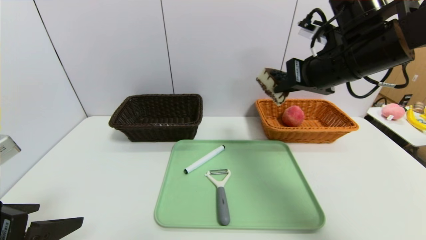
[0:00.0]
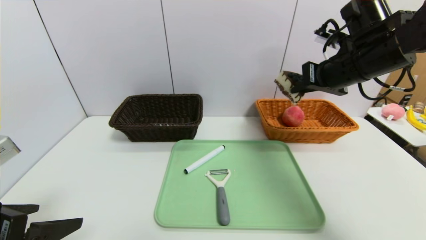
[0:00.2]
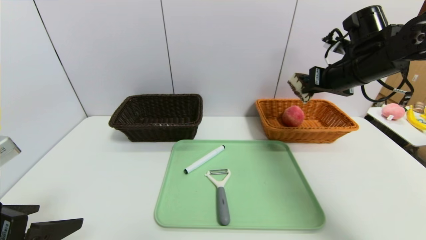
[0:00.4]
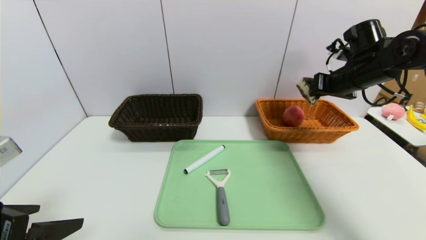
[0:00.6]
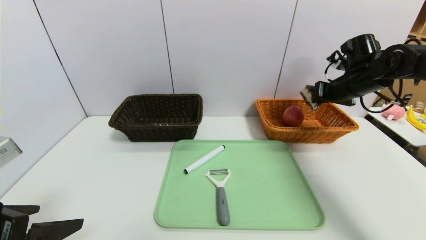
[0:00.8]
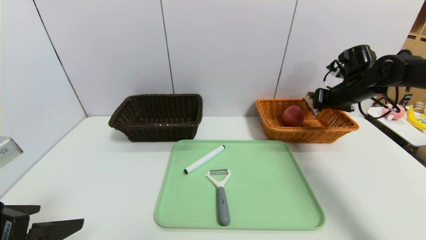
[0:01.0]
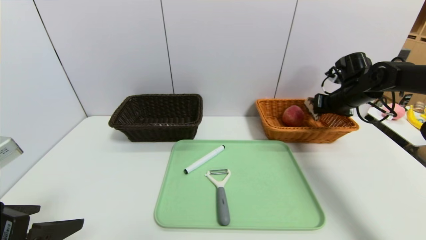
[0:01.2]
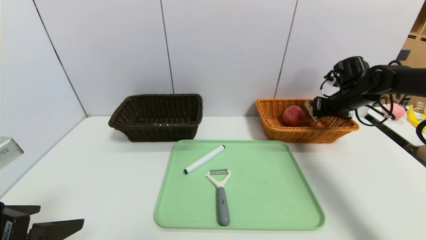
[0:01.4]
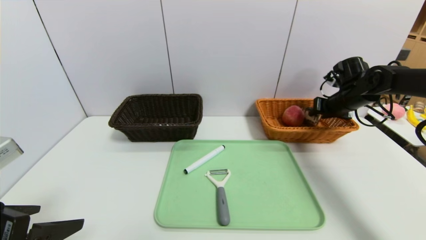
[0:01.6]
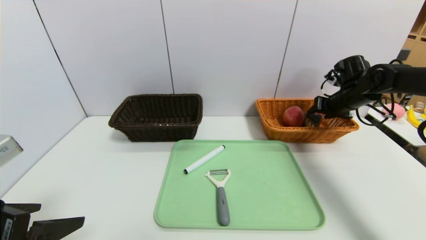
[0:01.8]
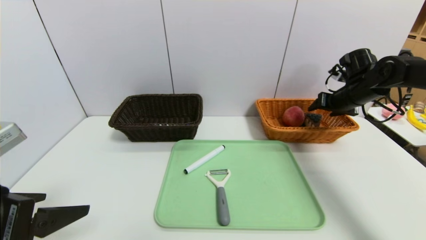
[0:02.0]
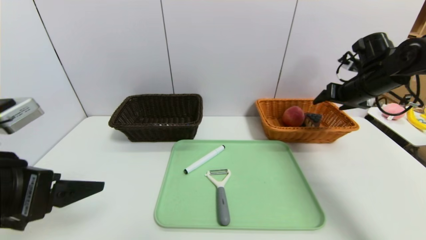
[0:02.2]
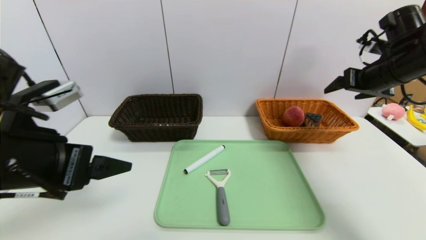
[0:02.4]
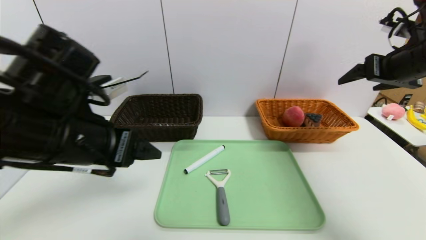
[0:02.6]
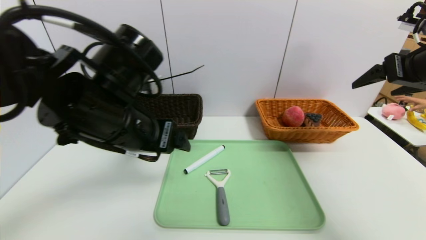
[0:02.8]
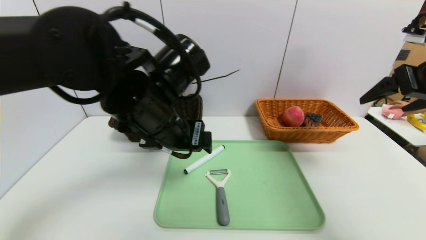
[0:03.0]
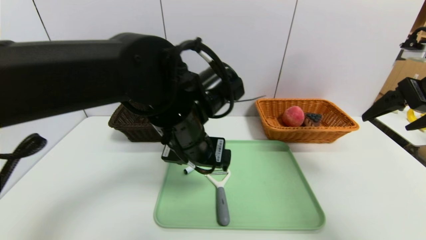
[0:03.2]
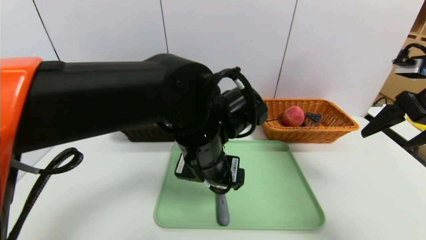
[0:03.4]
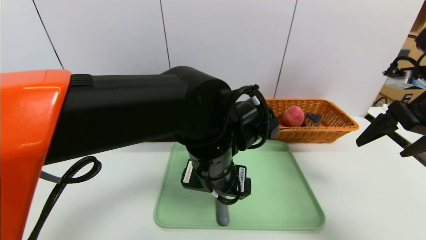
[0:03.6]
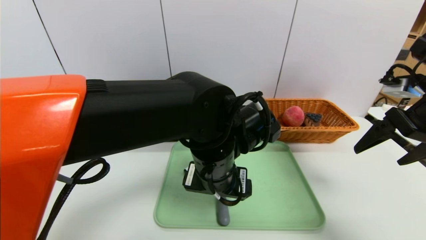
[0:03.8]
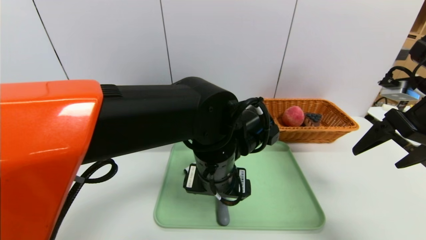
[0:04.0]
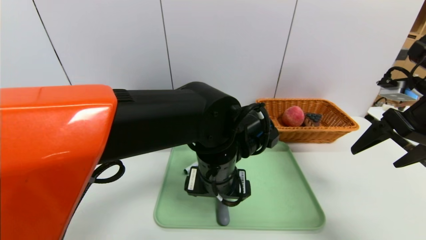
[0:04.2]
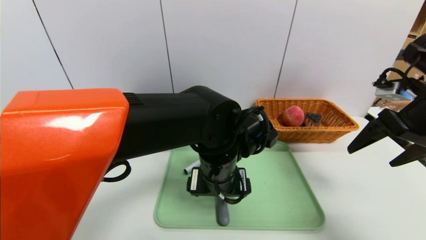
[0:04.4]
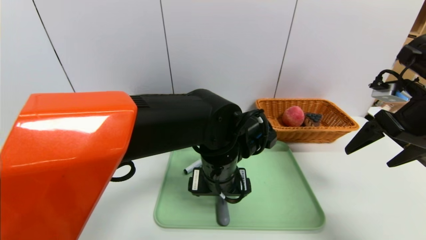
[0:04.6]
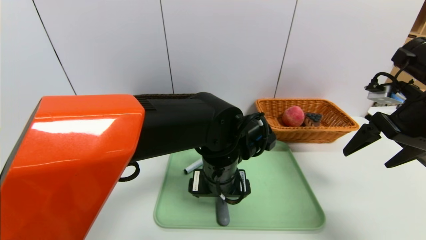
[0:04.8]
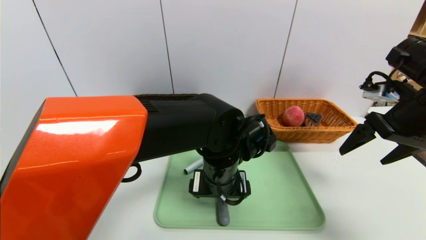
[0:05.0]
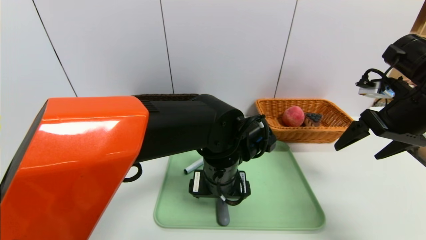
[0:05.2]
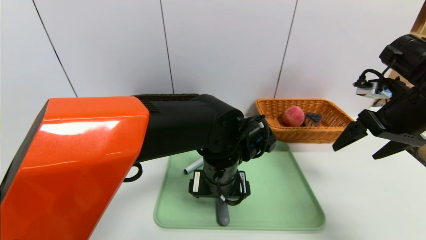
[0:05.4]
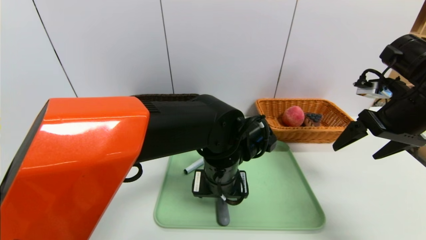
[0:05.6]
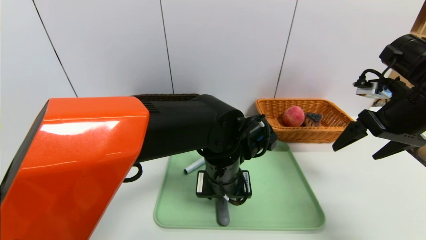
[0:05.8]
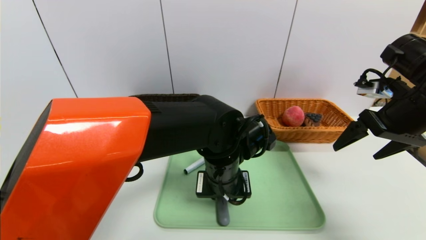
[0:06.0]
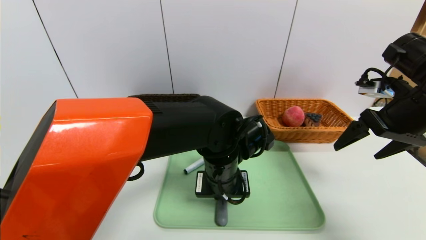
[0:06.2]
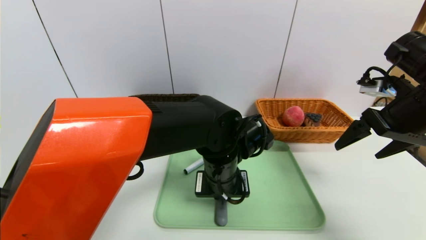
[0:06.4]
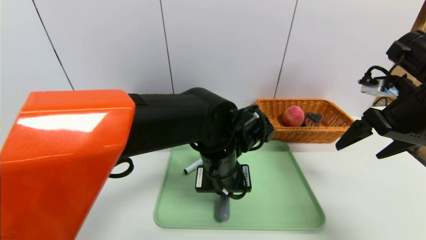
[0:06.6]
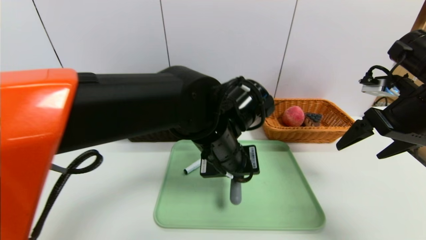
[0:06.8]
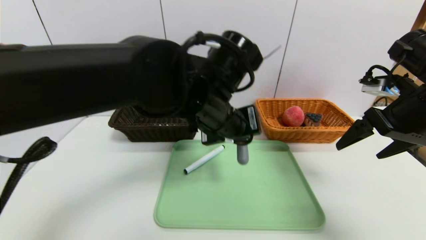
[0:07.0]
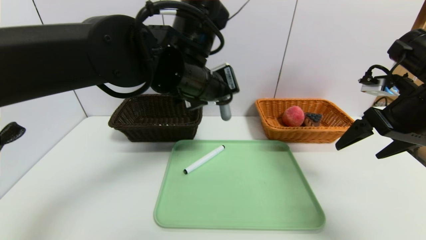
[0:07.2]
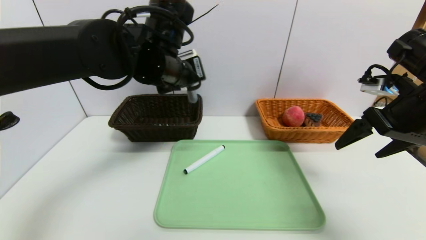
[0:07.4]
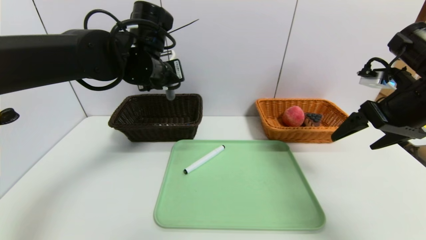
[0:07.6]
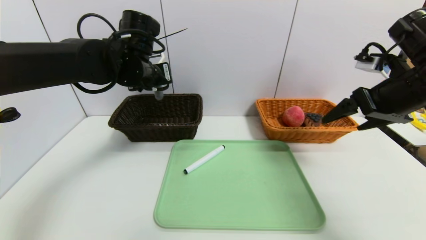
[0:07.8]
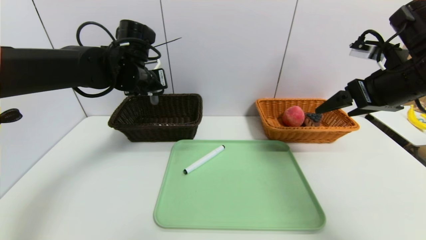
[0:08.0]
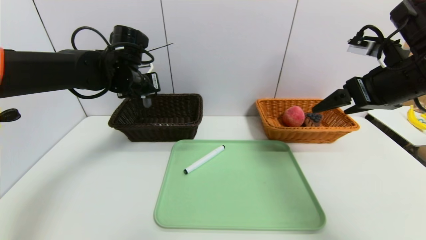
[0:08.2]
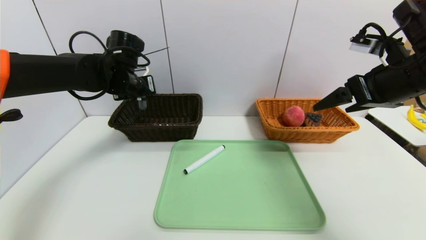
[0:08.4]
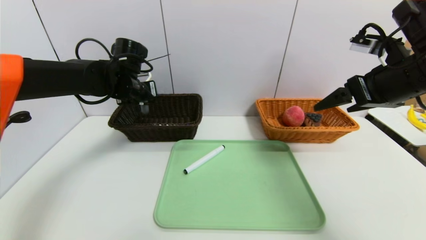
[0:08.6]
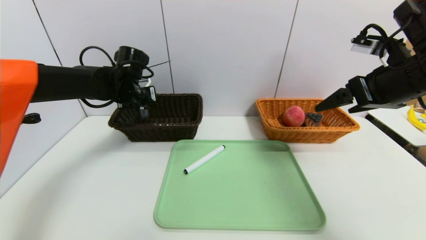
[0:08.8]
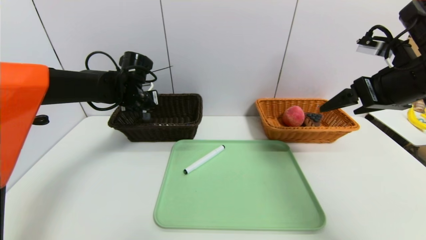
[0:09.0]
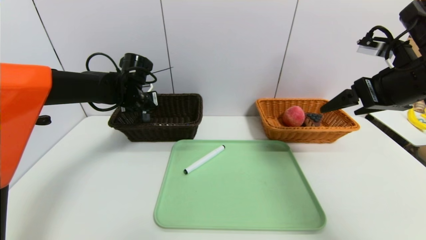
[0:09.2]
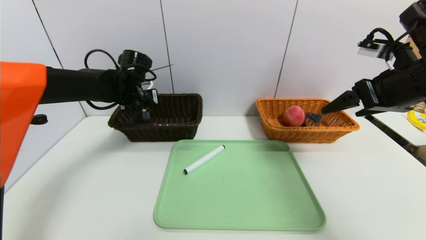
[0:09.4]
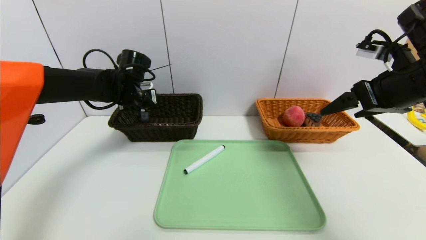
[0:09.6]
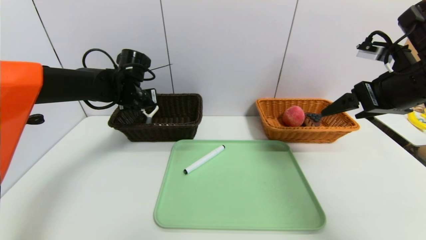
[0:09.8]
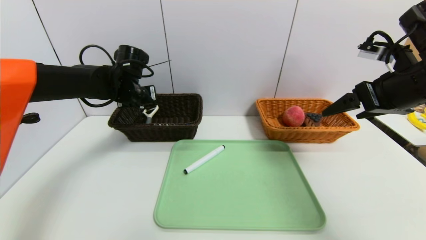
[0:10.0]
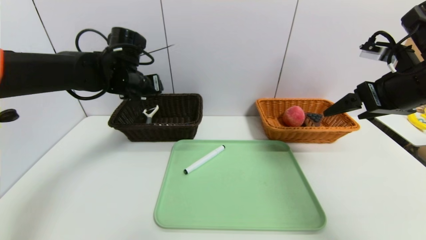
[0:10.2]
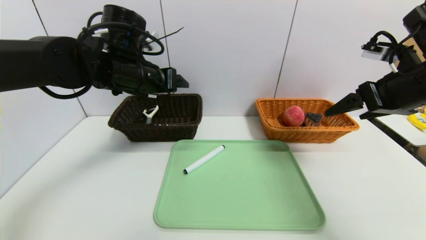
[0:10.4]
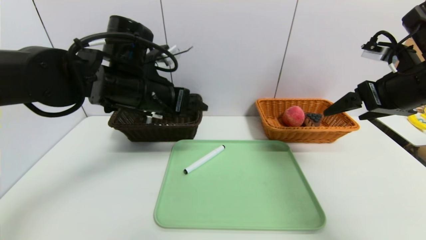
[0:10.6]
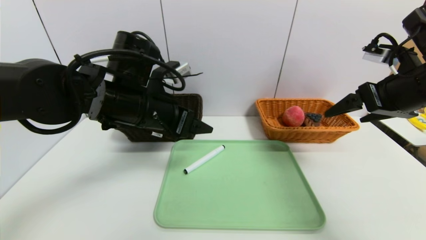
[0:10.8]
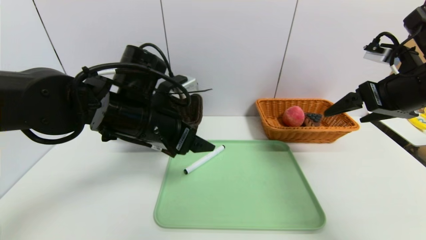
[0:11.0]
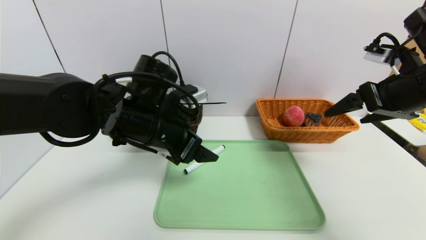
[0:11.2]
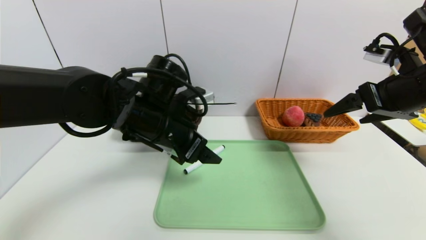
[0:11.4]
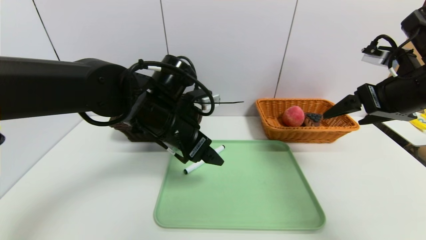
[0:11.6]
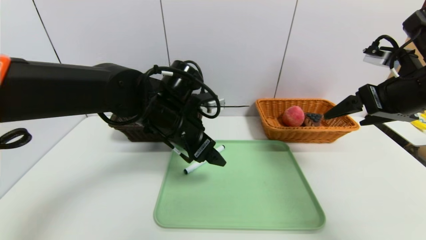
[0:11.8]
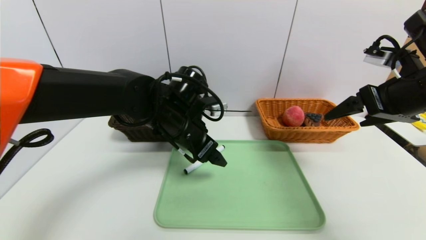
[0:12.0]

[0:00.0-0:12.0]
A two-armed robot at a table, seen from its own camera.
Task of the whole recording: place the food in the right basket with the right gripper, and place the non food items in the left basket with the left gripper.
Step, 0:00.0 to 0:02.2: Grasp the triangle cake and put it in the right basket.
Step, 0:02.4 to 0:10.0: Grasp the peeler and put it in the left basket.
0:00.0 to 0:01.6: The right gripper goes some 25 cm to the right, forward and downward, and opens up.
0:01.6 to 0:03.0: The right gripper is displaced backward and upward by some 25 cm, and opens. The left gripper goes approximately 25 cm to the right and forward.
0:03.0 to 0:04.4: The right gripper shifts some 5 cm downward. The left gripper goes about 15 cm downward and to the right.
0:04.4 to 0:06.0: The left gripper closes.
0:06.0 to 0:07.6: The left gripper moves to the left, upward and forward, some 20 cm.
0:07.6 to 0:09.0: The left gripper heads downward, to the left and forward, covering some 15 cm.
0:09.0 to 0:10.4: The left gripper heads backward and upward, covering about 10 cm, and opens.
0:10.4 to 0:12.0: The left gripper heads downward and to the right, covering some 10 cm.

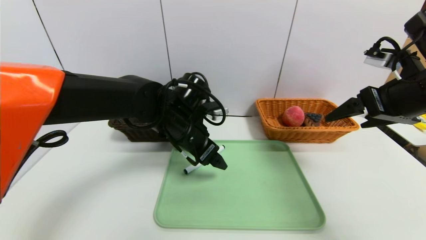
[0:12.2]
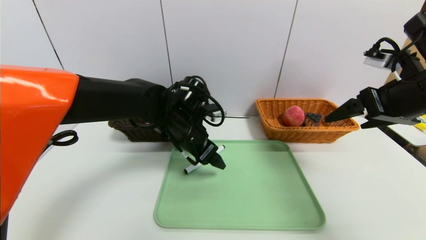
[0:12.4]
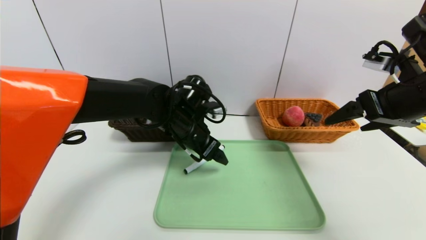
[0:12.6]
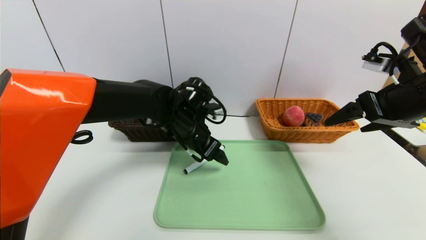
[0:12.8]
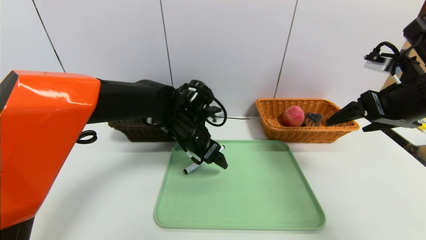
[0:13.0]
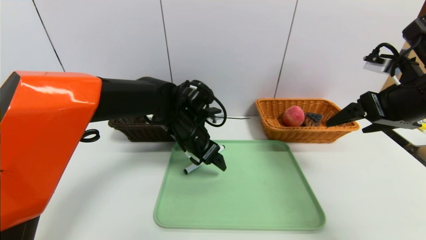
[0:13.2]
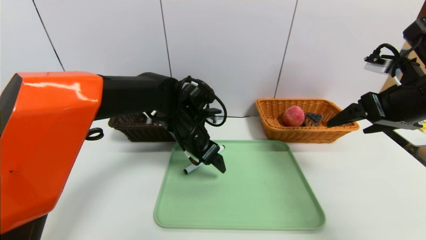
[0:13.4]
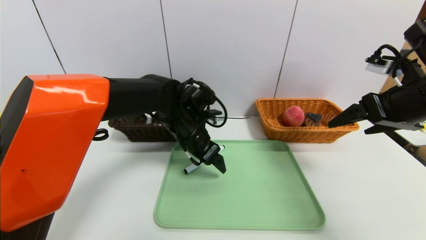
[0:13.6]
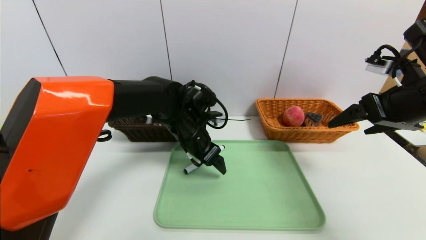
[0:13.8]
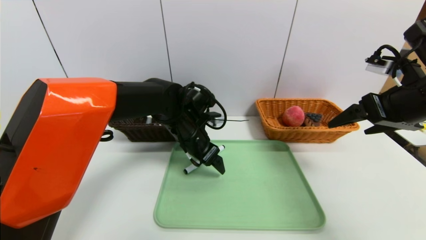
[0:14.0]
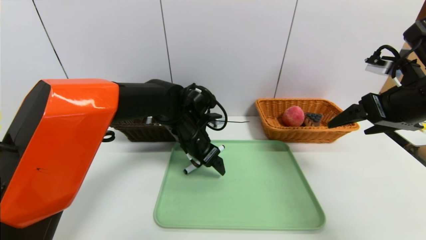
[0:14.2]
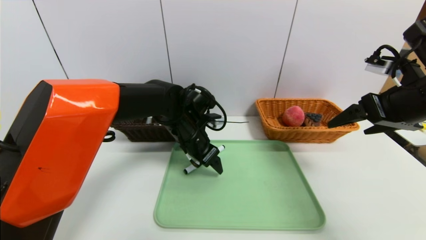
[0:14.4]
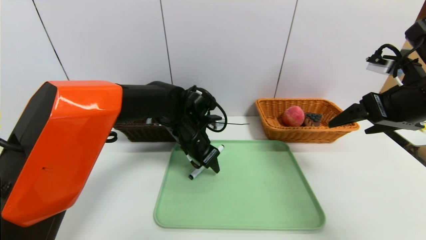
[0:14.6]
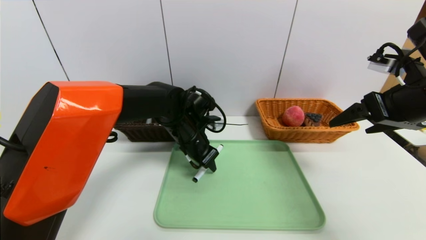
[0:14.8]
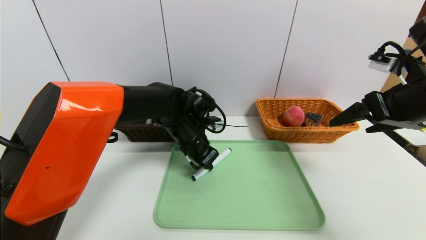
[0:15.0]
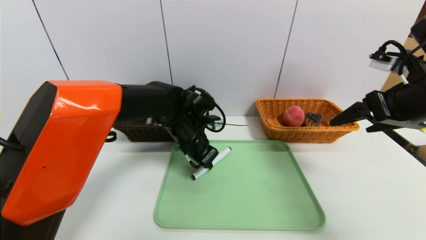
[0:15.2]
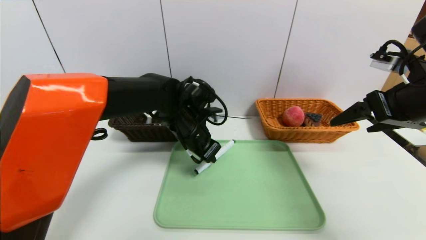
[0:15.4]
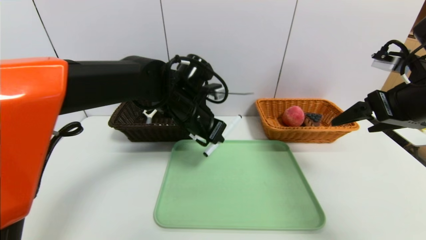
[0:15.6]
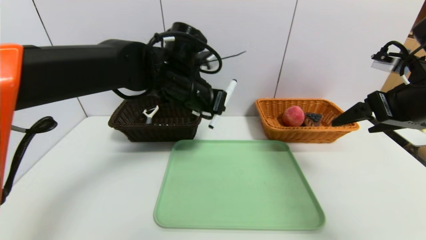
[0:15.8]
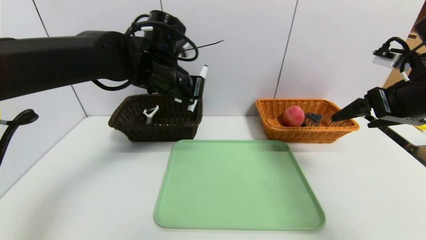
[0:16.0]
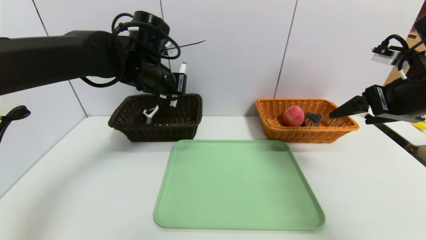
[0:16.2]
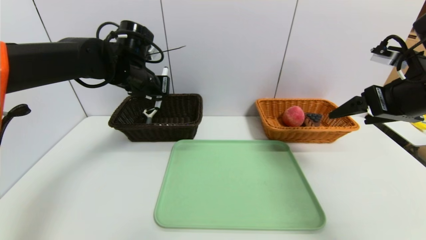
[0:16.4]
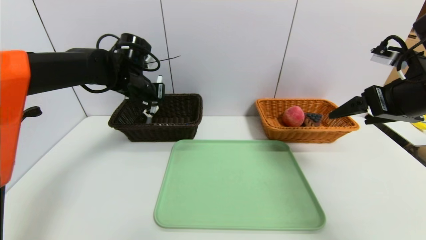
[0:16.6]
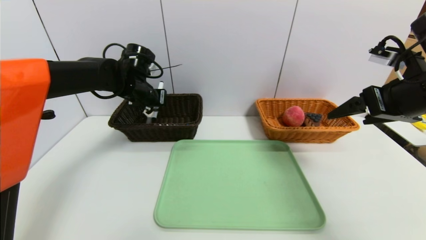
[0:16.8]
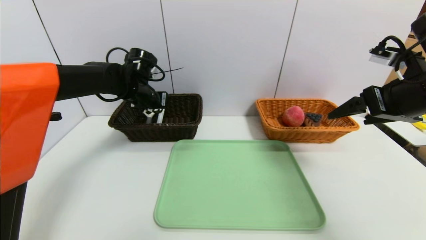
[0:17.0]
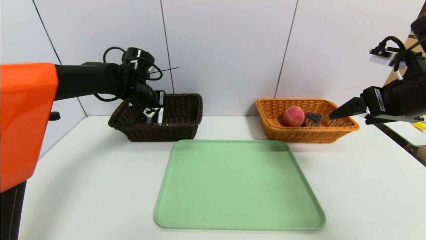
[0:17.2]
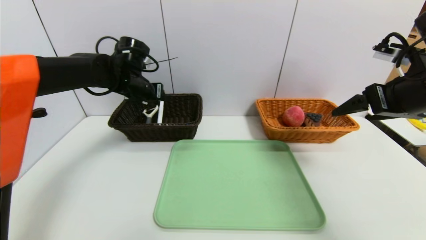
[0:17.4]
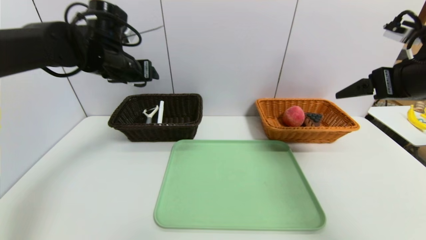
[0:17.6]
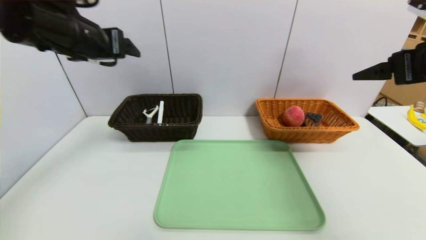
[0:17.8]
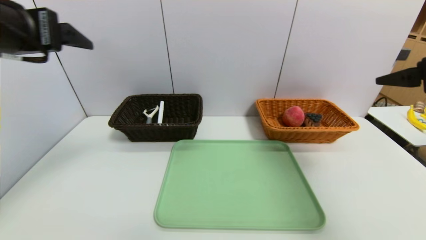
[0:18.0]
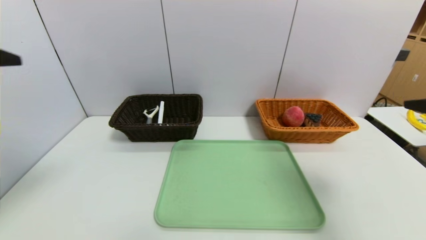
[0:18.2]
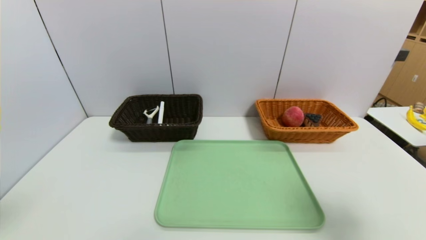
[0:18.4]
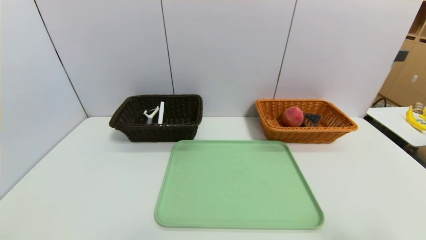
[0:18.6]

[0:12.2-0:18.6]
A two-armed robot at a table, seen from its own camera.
Task of the whole recording: place the food in the right basket with the right gripper, and place the non food items in the left basket with the left gripper.
Step, 0:12.2 to 0:17.4: Grasp the black marker and put it in the left basket.
0:13.8 to 0:15.4: The left gripper closes.
0:15.4 to 0:17.0: The left gripper is displaced to the left and forward by approximately 15 cm.
0:17.0 to 0:18.6: The right gripper moves backward, about 25 cm. The left gripper heads backward, covering some 50 cm, and opens its fingers.
